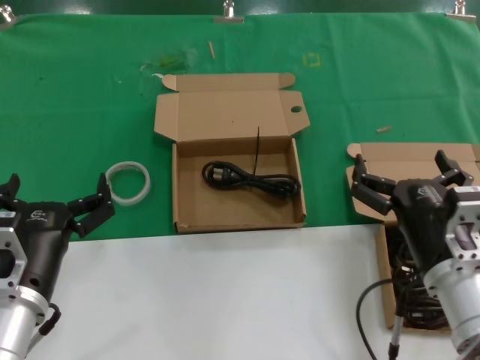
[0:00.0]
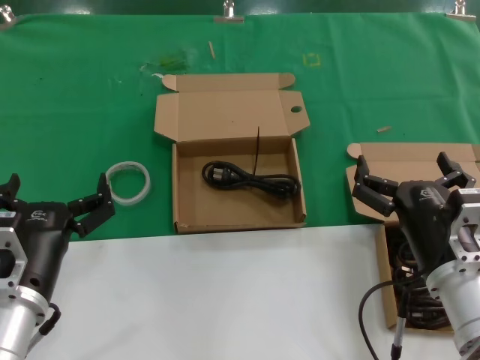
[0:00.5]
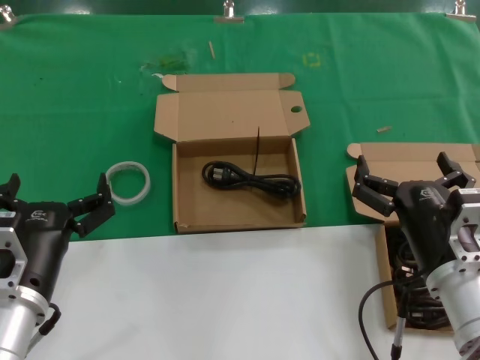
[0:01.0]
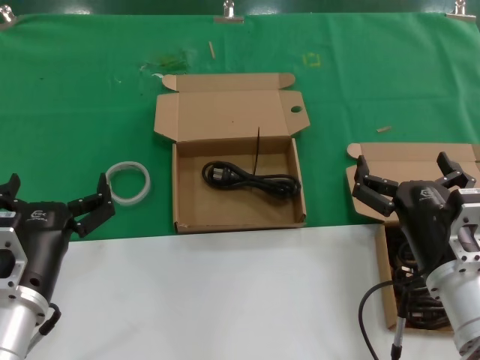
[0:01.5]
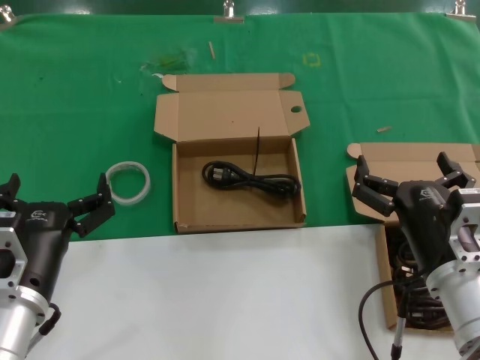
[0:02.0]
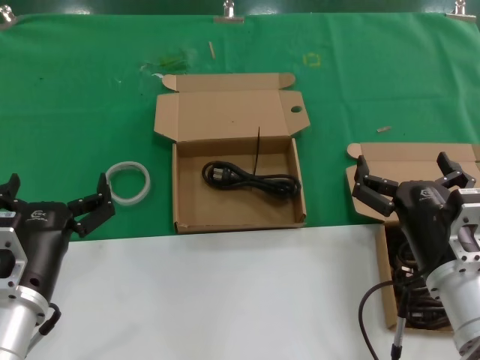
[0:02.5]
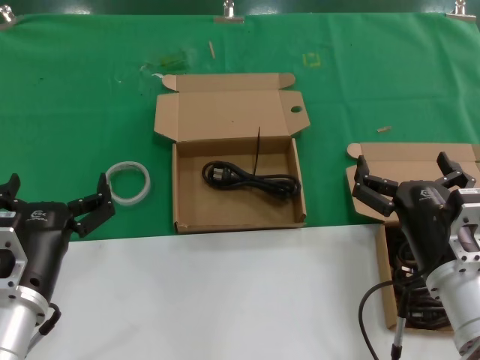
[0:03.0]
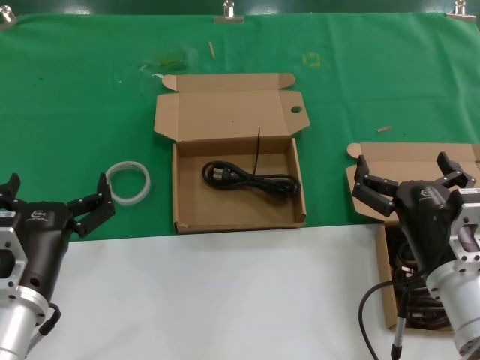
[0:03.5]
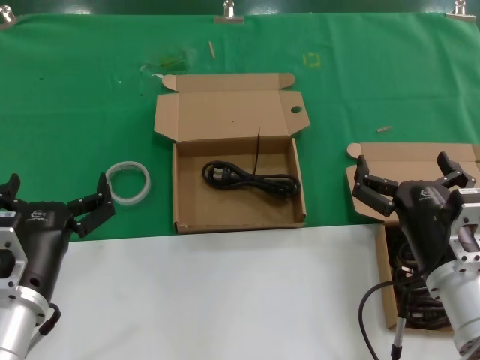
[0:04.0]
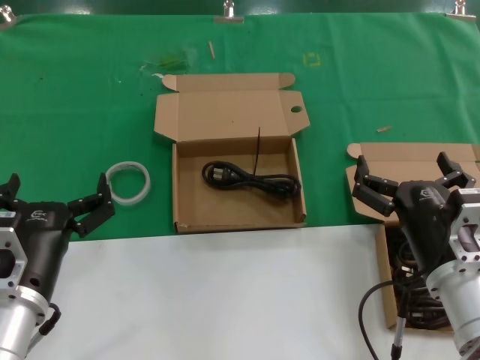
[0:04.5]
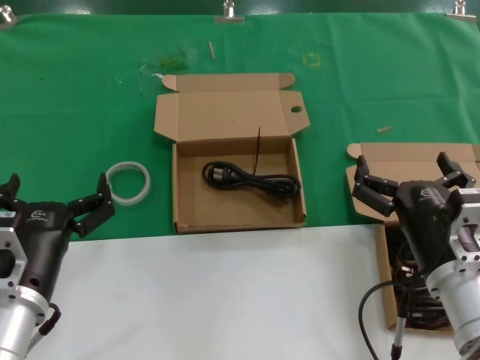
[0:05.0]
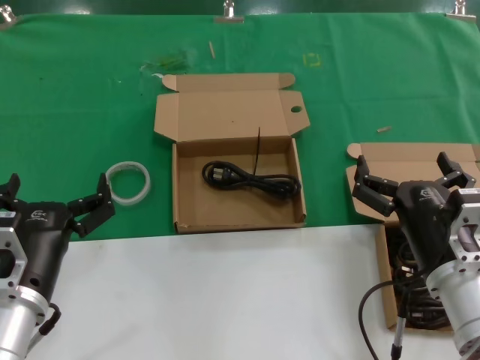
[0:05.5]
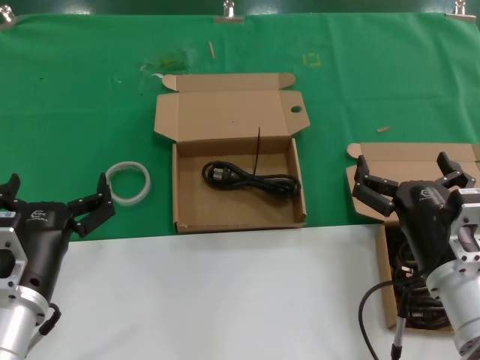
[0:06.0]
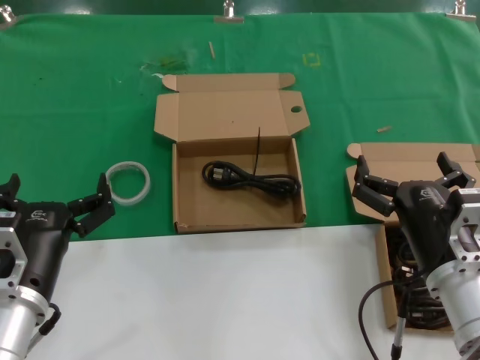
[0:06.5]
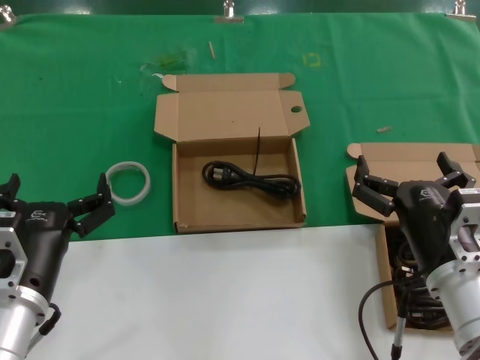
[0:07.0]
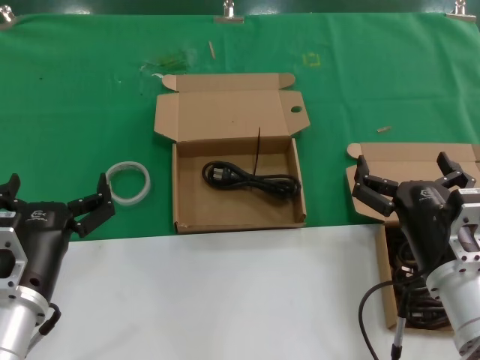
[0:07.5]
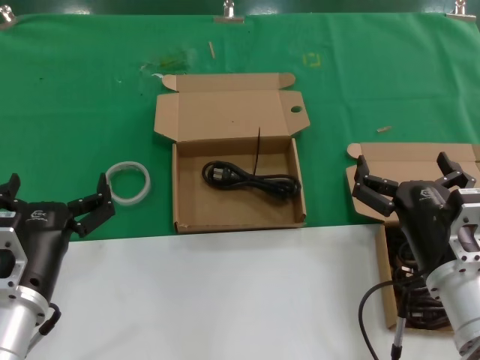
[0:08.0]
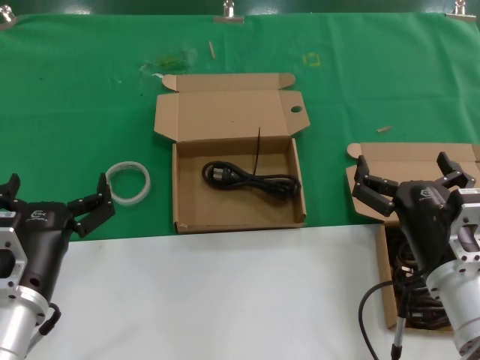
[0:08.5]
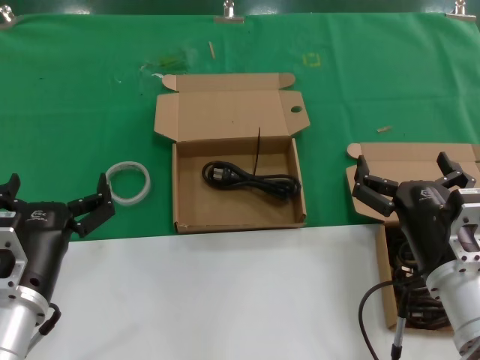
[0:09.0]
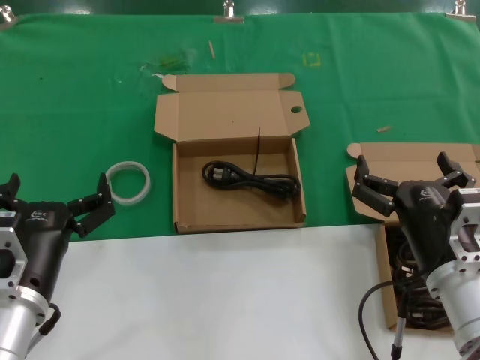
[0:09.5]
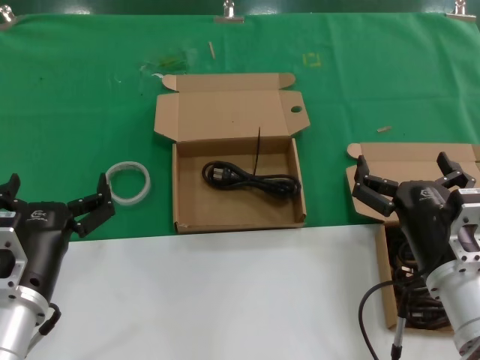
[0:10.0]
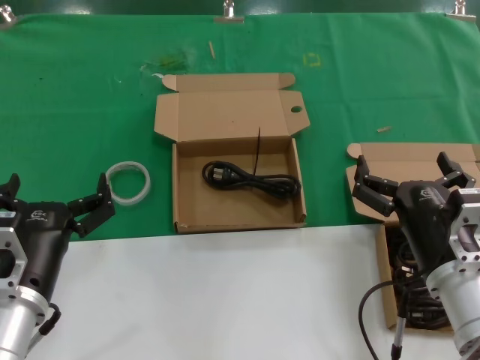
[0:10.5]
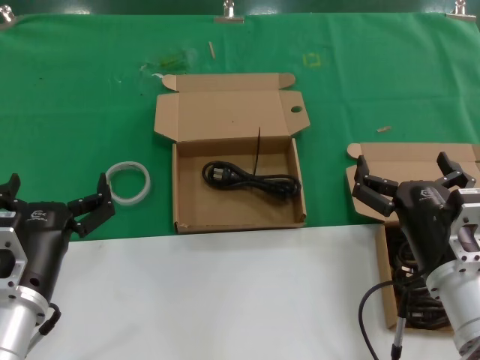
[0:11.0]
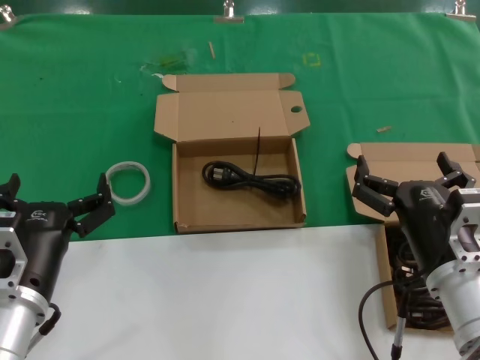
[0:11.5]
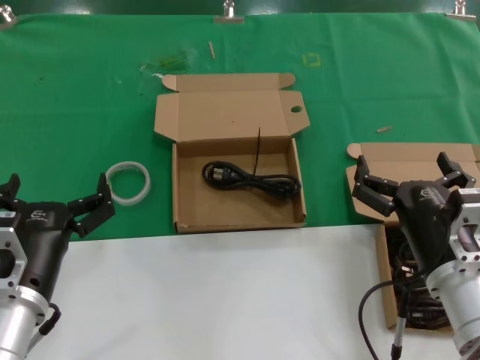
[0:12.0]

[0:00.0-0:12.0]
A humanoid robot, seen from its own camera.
Task of the whole recording: take the parts from the box containing them and put them into an empty box.
0:00.0 to 0:12.0: Neither hand changes place.

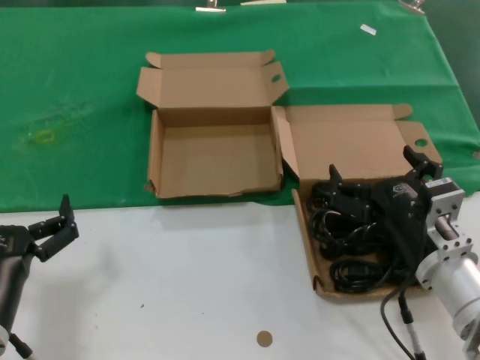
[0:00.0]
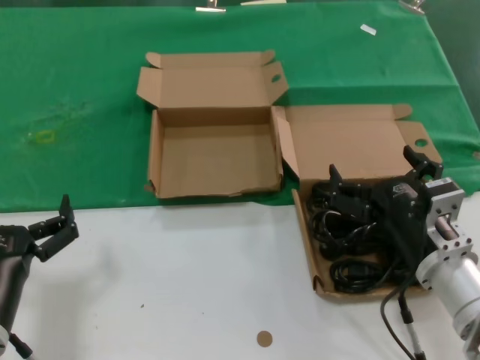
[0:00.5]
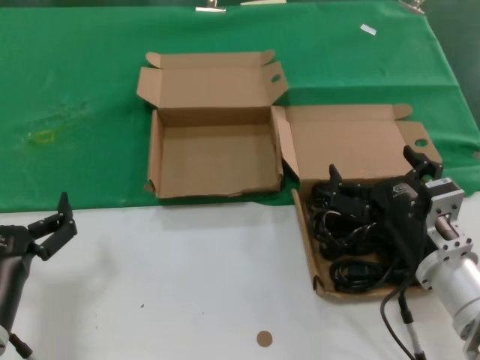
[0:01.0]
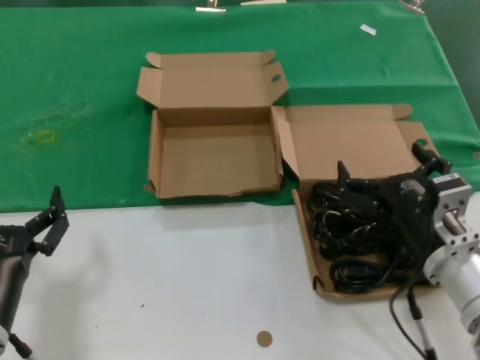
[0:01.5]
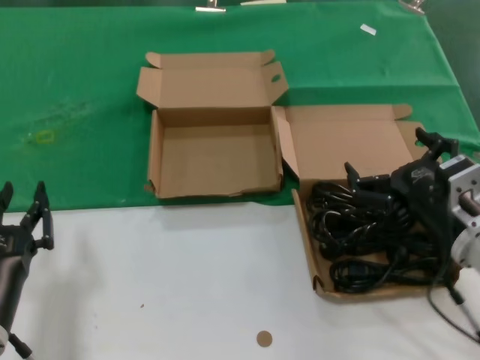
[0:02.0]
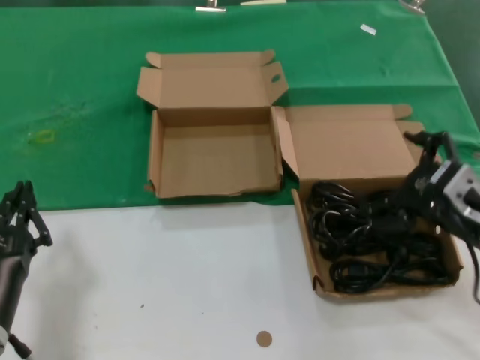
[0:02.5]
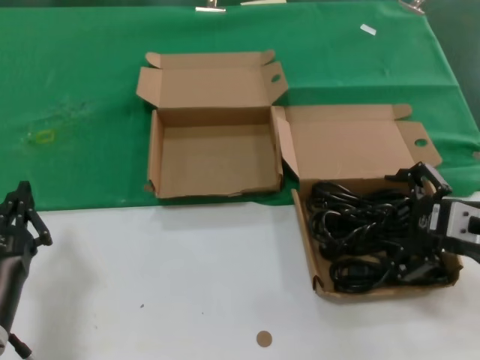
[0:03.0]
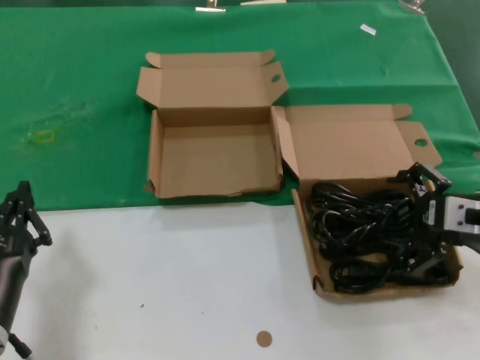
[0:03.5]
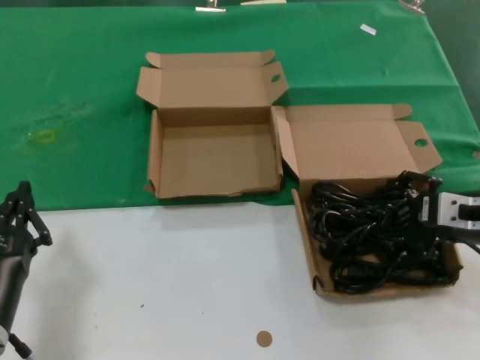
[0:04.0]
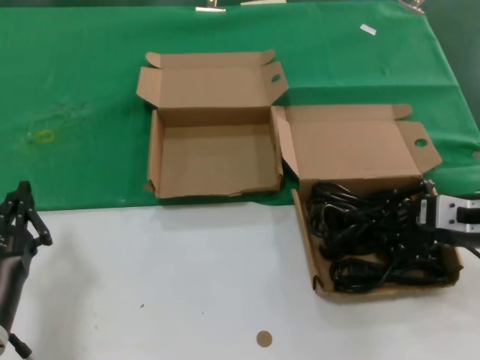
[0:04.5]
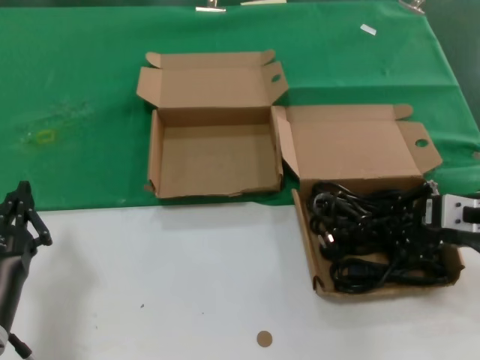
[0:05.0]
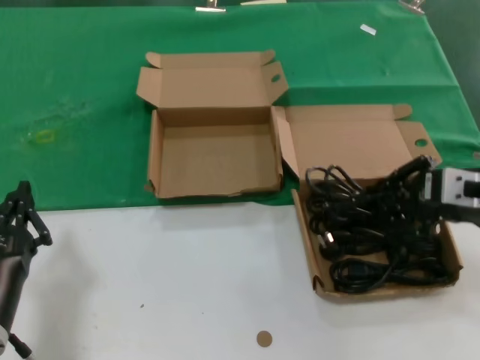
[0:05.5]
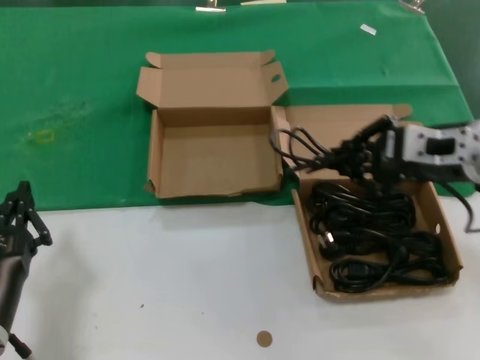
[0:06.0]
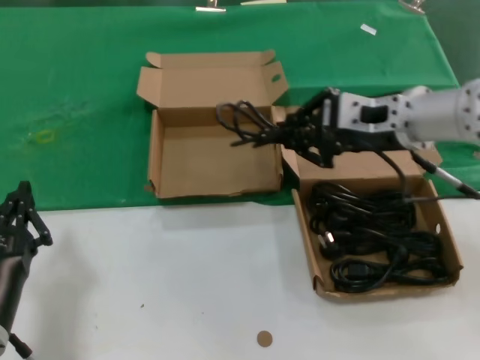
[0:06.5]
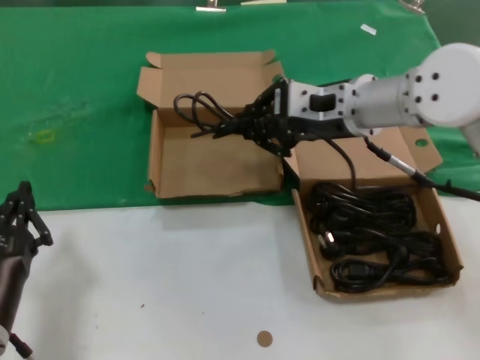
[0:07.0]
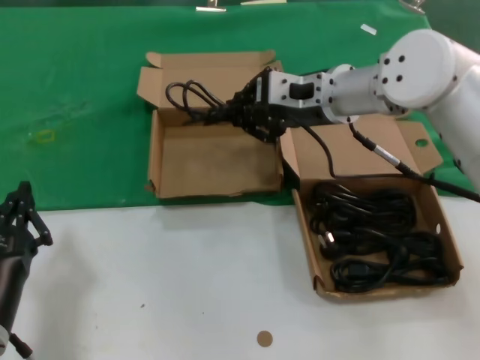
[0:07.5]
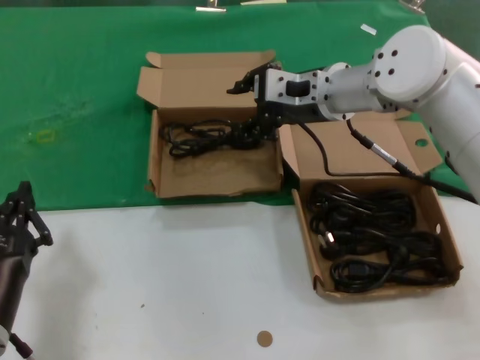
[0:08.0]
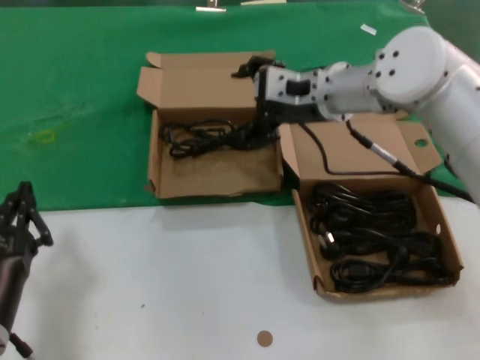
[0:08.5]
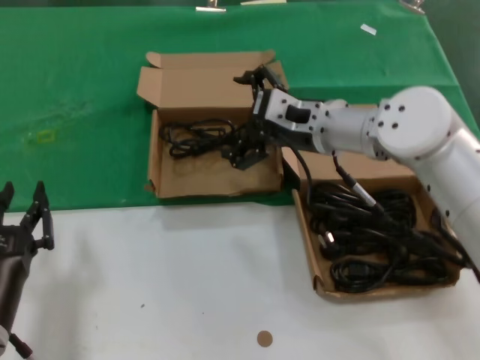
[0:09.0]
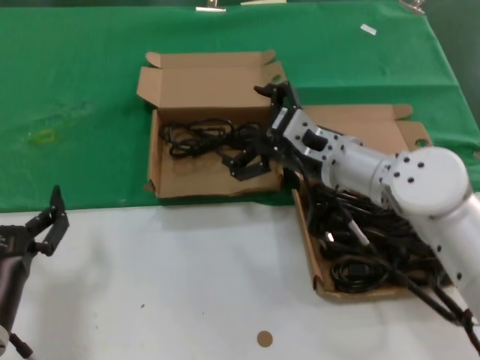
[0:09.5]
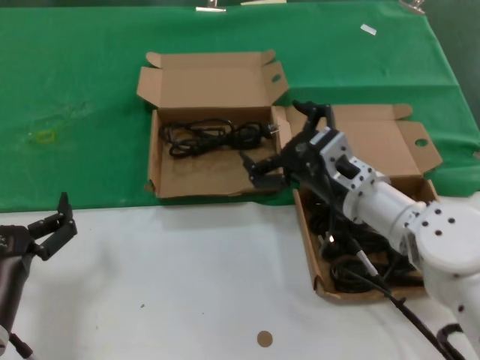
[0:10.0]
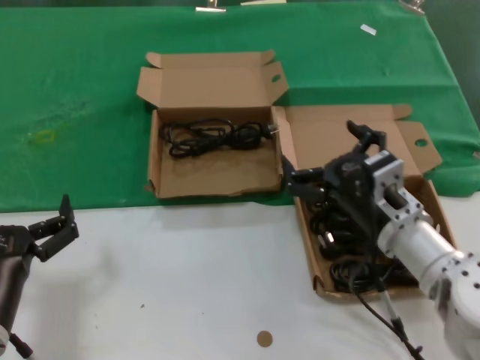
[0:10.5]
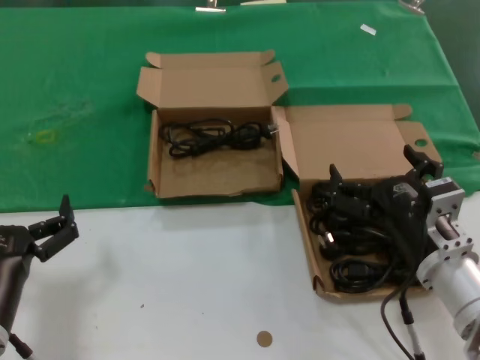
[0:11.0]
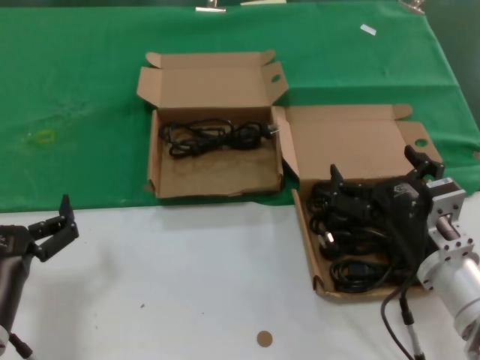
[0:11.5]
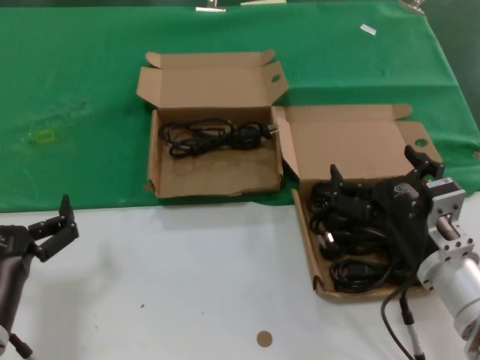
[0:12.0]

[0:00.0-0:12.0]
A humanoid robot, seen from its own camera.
Task of the whole recording: take the parts from the box containing them and put them into an empty box.
Step, 0:00.0 to 0:04.5: Grasp the data cable.
Step, 0:05.0 to 0:07.5: Place the data cable in the another box.
0:00.0 to 0:02.0: The right hand changes place by roughly 5 cm.
0:02.0 to 0:04.0: The right hand moves to the right and upward, roughly 10 cm.
0:04.0 to 0:06.0: The right hand moves upward, some 10 cm.
0:06.0 to 0:08.0: The right hand heads forward and to the left, covering some 20 cm.
0:08.0 to 0:10.0: The right hand shifts about 15 cm downward and backward.
0:10.0 to 0:12.0: The right hand shifts about 10 cm backward and to the right.

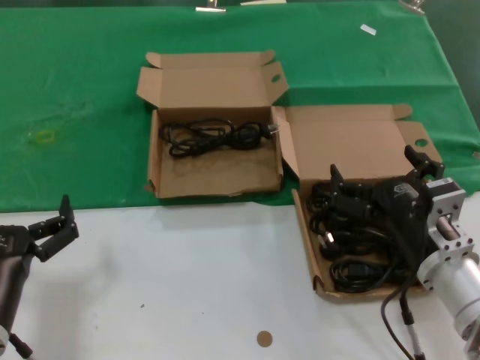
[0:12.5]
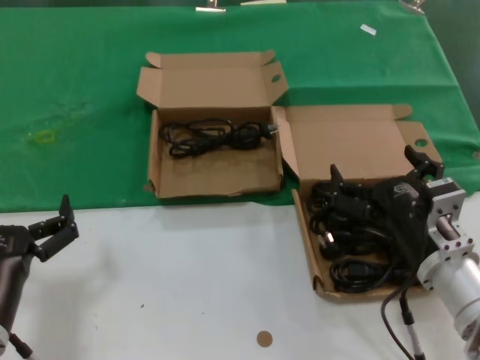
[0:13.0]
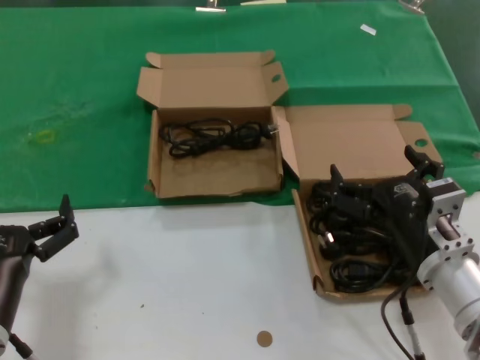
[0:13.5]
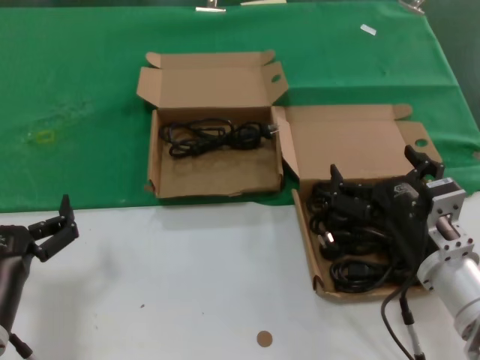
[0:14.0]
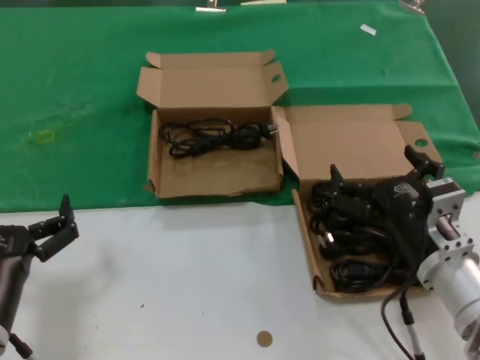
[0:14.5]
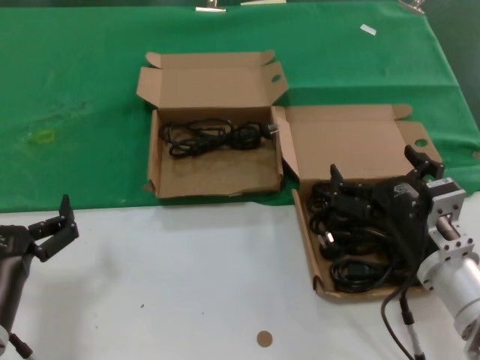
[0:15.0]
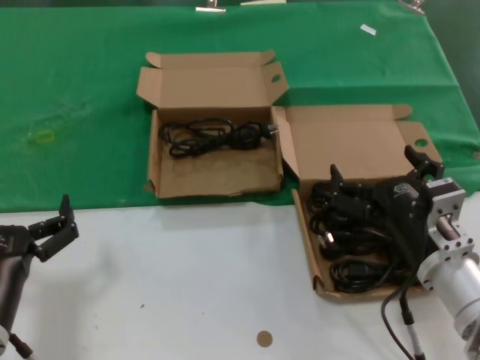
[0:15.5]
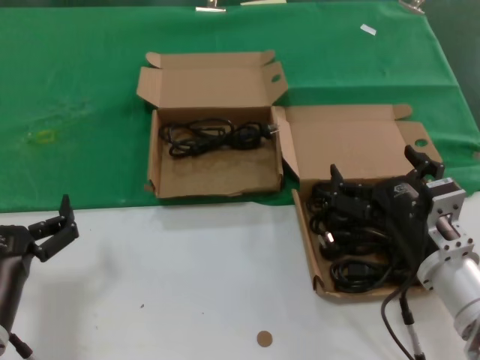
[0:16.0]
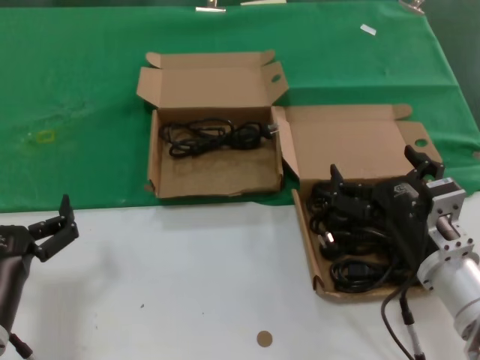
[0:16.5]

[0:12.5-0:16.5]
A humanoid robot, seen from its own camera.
Task of the whole recording: take the parts from the box containing them and put them into an empty box.
0:12.5 to 0:16.5: Neither hand changes place.
